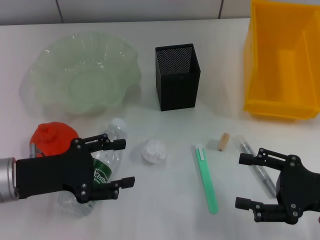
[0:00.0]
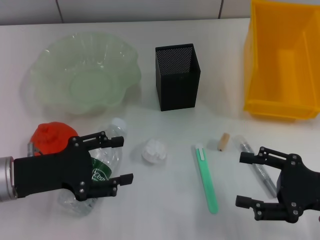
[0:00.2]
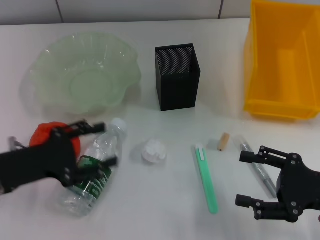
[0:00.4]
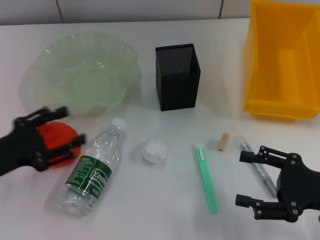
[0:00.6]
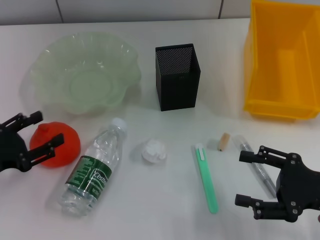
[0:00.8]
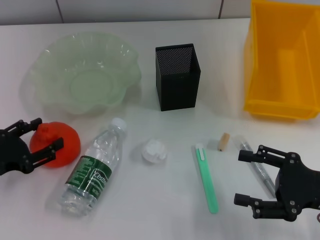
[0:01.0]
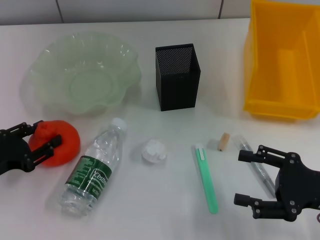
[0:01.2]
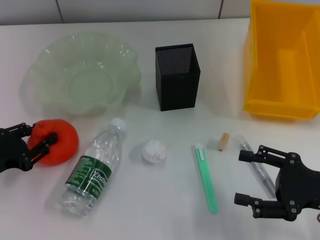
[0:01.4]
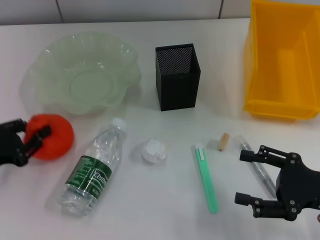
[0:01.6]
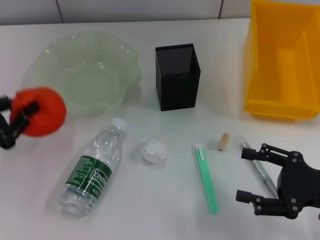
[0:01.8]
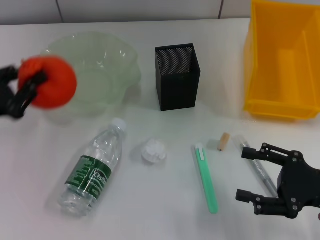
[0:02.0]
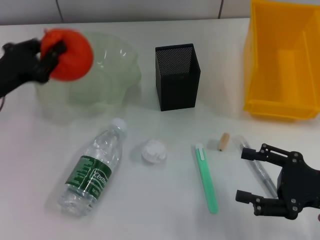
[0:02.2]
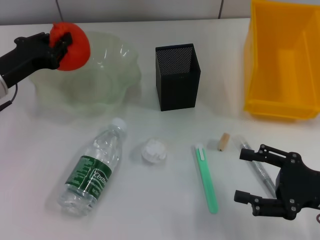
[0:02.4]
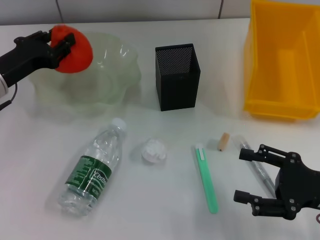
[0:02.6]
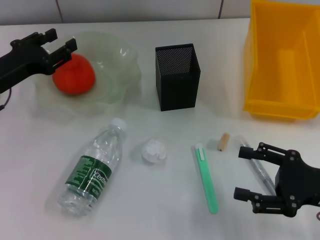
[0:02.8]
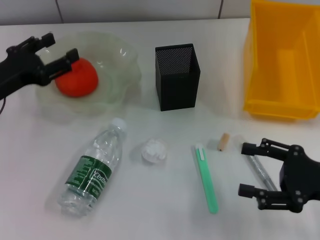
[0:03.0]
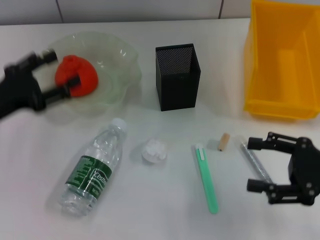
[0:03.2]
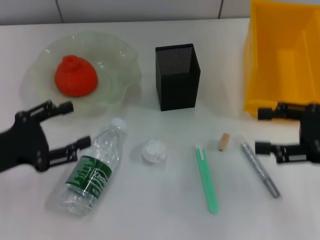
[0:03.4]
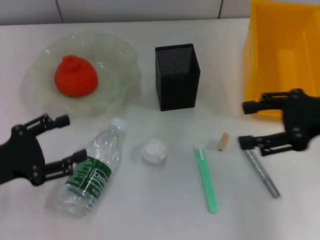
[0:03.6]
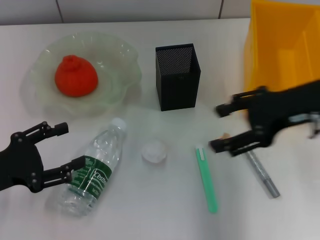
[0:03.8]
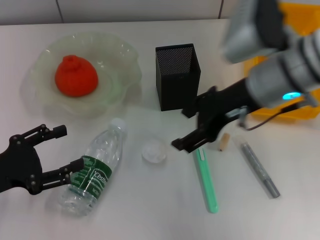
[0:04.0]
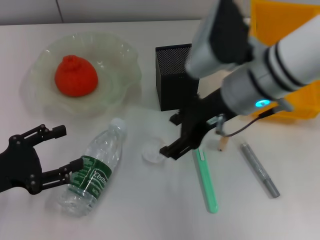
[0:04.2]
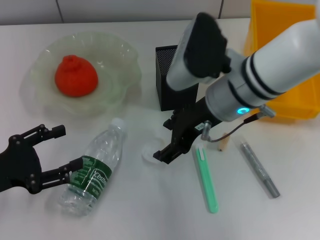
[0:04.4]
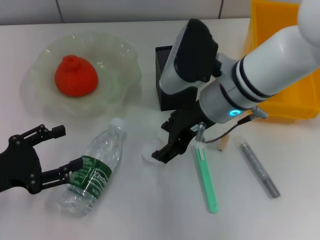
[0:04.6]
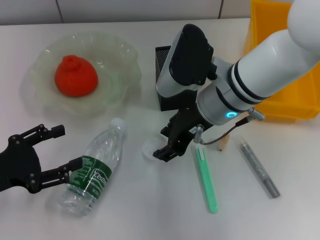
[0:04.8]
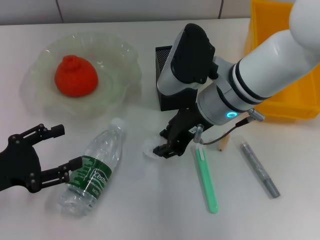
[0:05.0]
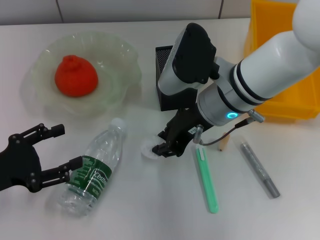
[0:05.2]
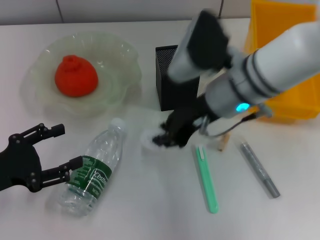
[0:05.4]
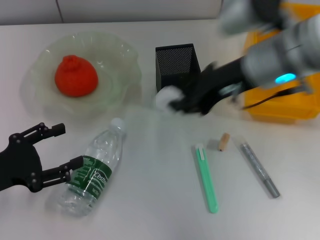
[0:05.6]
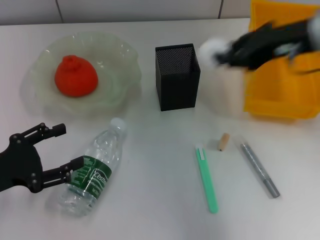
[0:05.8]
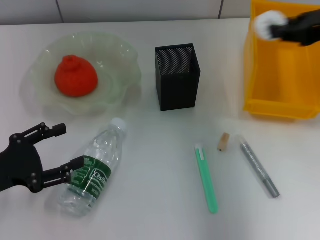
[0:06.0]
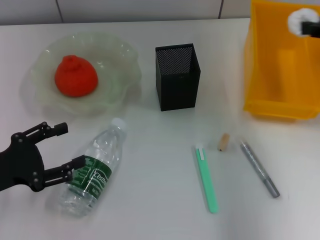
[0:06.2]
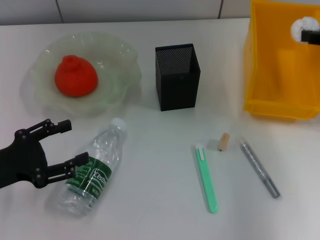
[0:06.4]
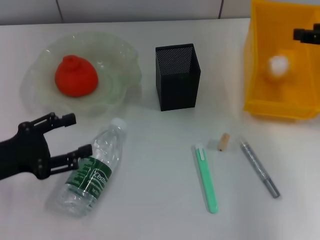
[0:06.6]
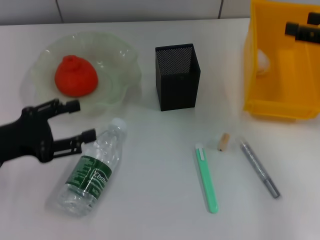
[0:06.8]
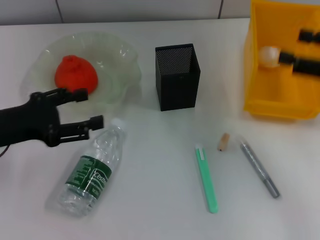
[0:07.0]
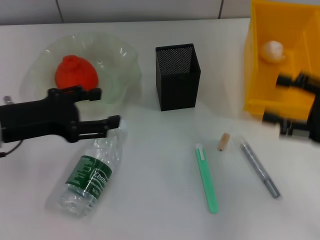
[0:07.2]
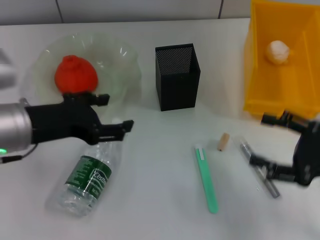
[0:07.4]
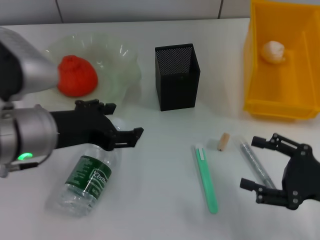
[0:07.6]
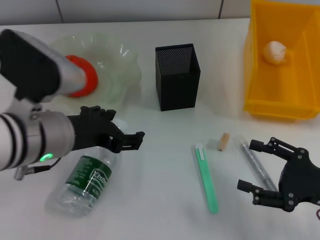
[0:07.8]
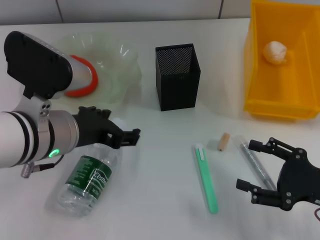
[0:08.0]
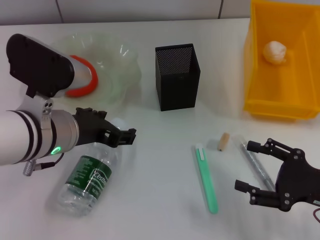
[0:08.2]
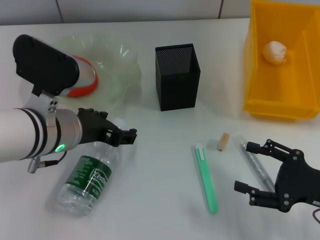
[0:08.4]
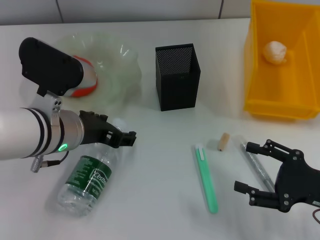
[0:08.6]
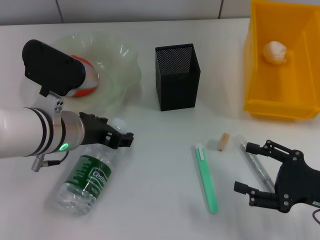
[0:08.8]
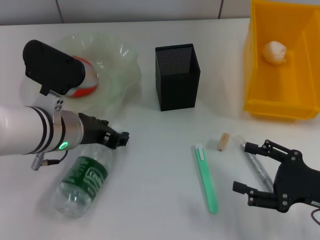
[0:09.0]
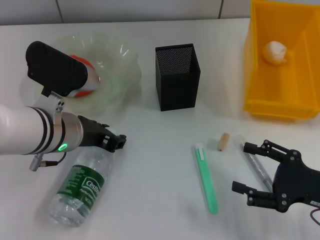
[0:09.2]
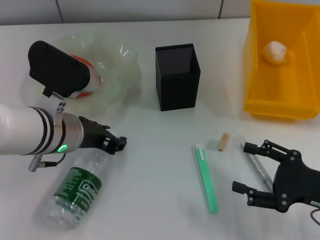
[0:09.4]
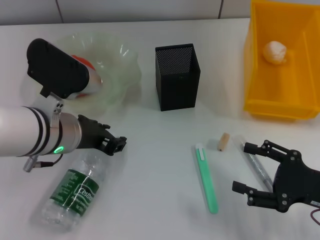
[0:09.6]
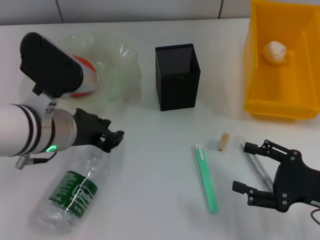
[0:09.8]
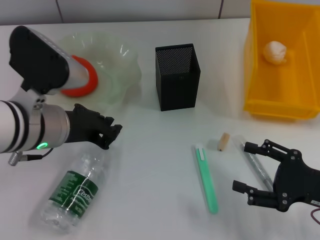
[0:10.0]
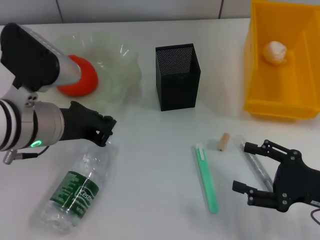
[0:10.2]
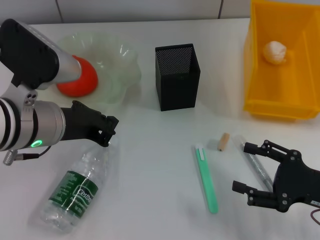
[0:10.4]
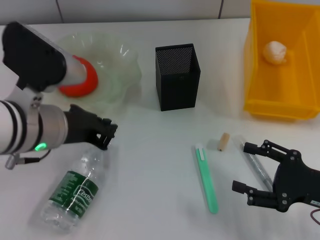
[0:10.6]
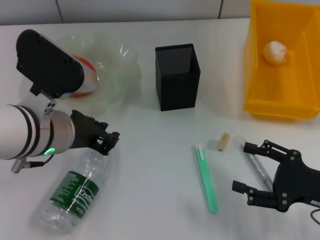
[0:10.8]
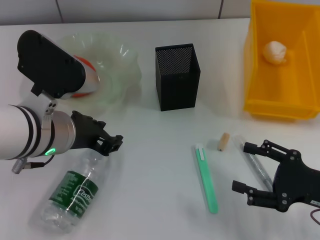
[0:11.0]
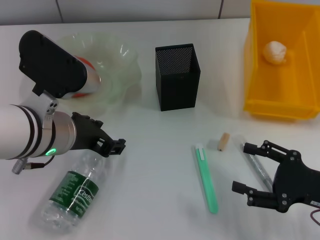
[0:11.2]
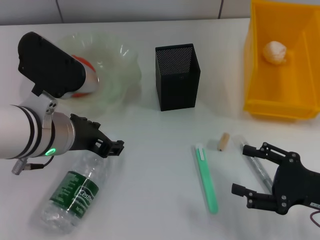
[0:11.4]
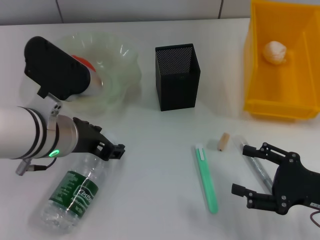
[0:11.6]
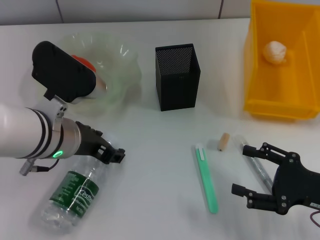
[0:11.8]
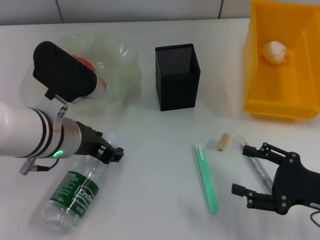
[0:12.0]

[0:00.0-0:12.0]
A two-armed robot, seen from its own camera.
Step, 0.0 to 1.4 s: Grab the orange with the left hand.
Step, 1.6 to 3.2 s: Place the orange into the fruit bowl with the left hand.
Step, 3.4 to 5.0 s: Grab the paper ball with the right hand.
Step, 5.2 to 6.6 s: Place the paper ball into the trash can with the right hand.
0.0 to 1.6 s: The left gripper goes about 10 cm to the left, and closes its fingers.
1.6 to 3.0 s: The left gripper travels forward and upward by approximately 10 cm, and closes and opens again.
3.0 to 4.4 s: The right gripper shifts about 25 cm to the left, forward and upward. Meanwhile the left gripper goes roughly 10 cm backward.
4.4 to 6.0 s: The right gripper travels to the right and upward by about 20 cm, and closes up.
6.0 to 7.6 s: The right gripper heads downward and backward, covering about 25 cm, and opens up; the left gripper moves to the right and upward, about 15 cm.
7.6 to 9.0 s: The left gripper is displaced downward by roughly 5 cm.
9.0 to 10.4 s: The left gripper changes place by some 5 cm, and closes its fingers.
10.4 to 12.0 s: The left gripper opens up.

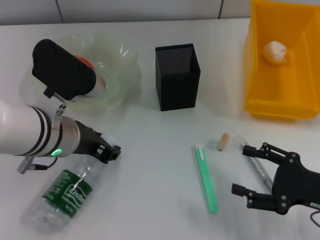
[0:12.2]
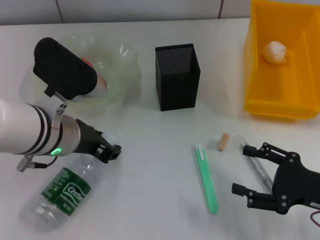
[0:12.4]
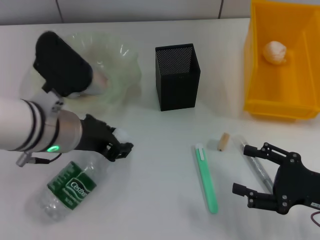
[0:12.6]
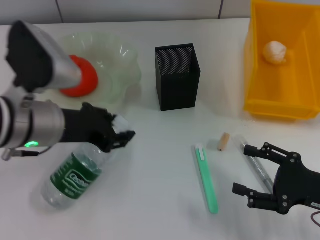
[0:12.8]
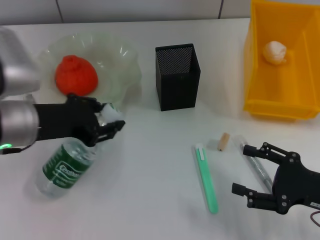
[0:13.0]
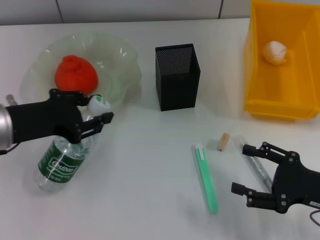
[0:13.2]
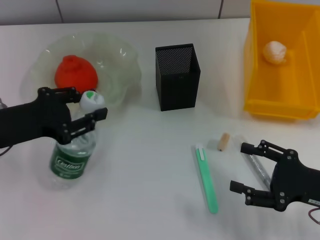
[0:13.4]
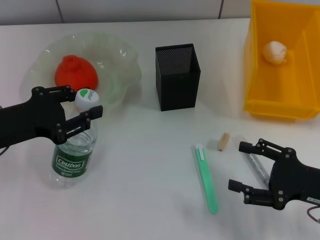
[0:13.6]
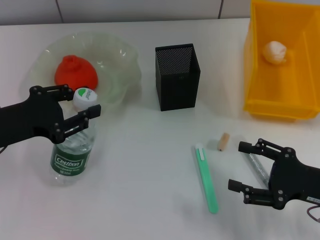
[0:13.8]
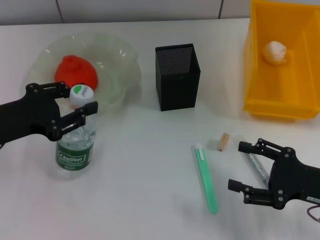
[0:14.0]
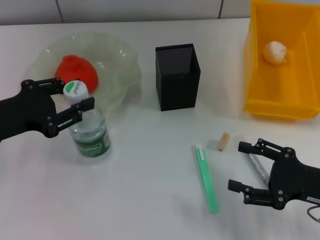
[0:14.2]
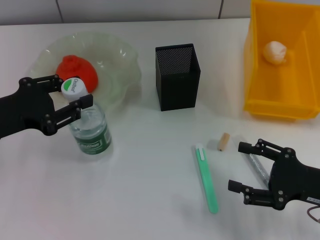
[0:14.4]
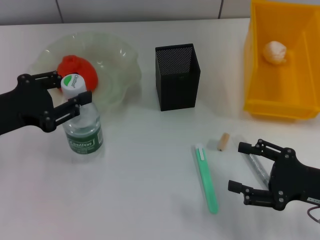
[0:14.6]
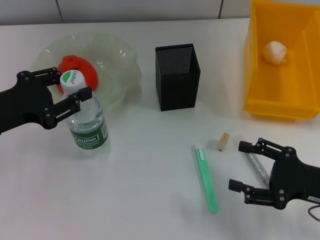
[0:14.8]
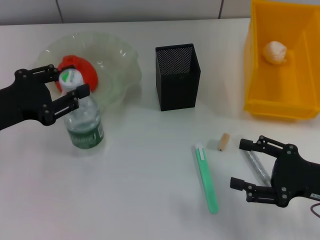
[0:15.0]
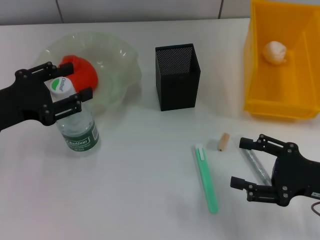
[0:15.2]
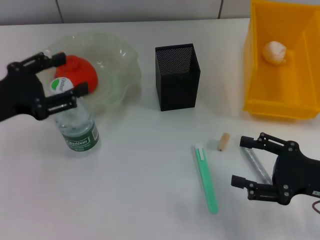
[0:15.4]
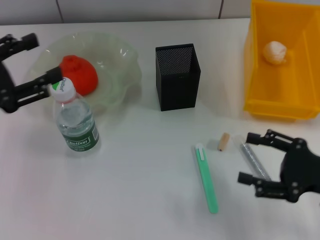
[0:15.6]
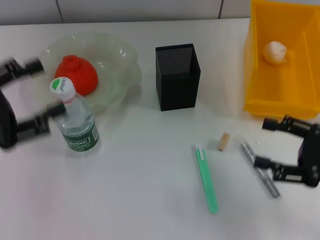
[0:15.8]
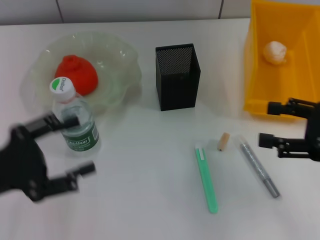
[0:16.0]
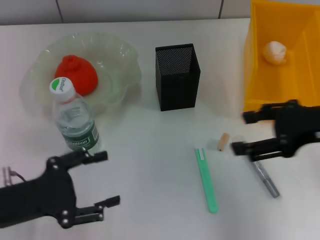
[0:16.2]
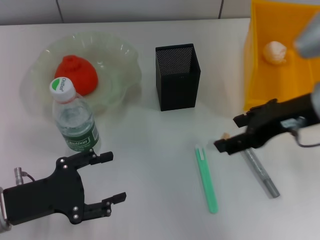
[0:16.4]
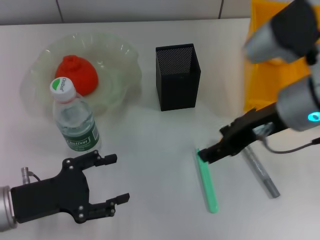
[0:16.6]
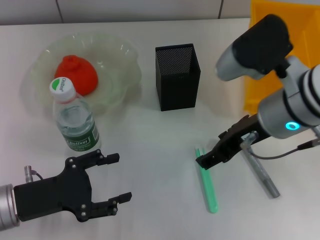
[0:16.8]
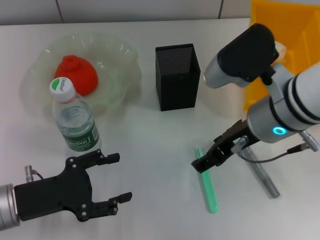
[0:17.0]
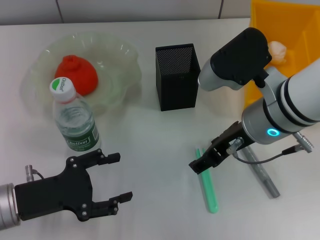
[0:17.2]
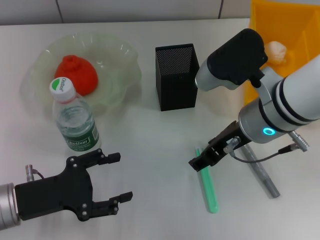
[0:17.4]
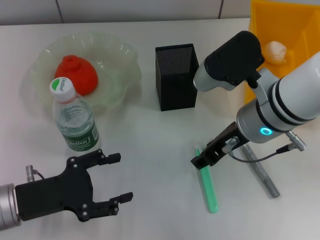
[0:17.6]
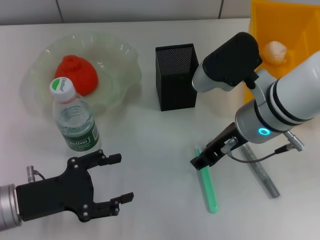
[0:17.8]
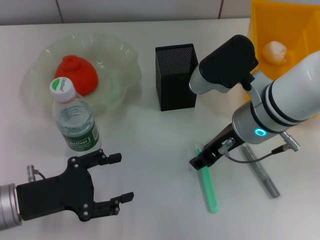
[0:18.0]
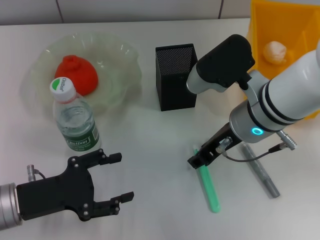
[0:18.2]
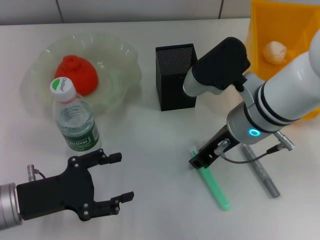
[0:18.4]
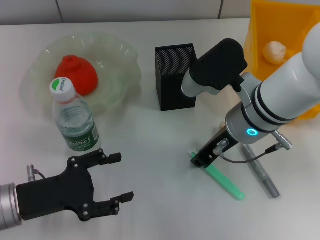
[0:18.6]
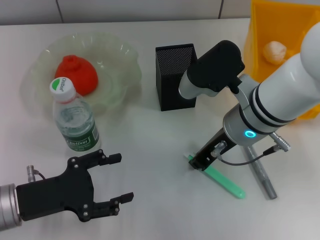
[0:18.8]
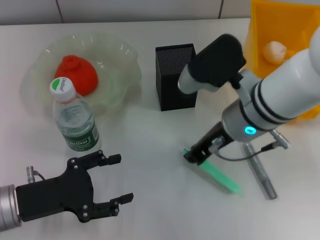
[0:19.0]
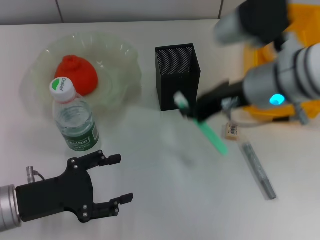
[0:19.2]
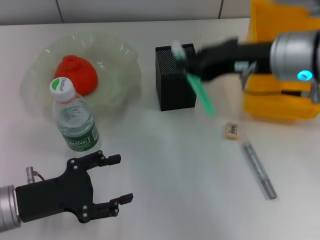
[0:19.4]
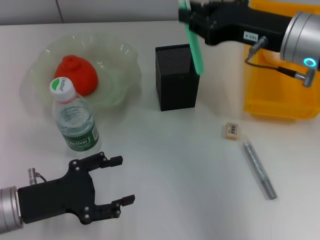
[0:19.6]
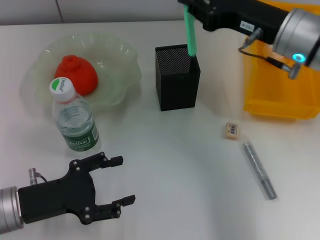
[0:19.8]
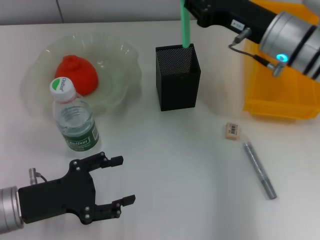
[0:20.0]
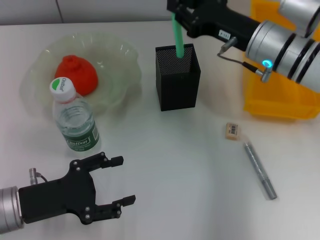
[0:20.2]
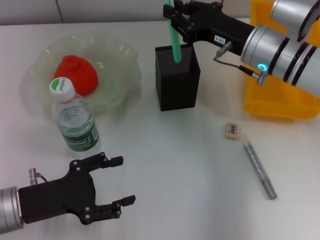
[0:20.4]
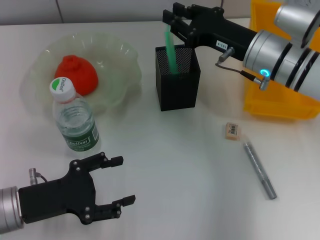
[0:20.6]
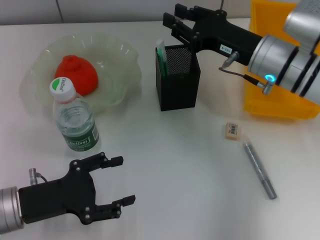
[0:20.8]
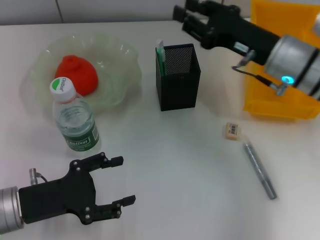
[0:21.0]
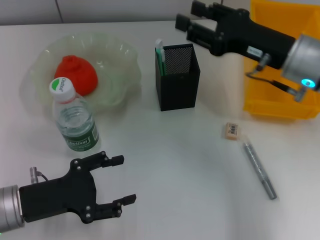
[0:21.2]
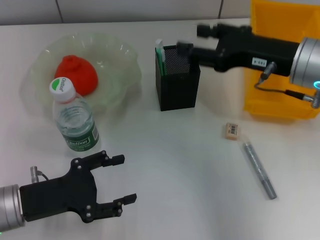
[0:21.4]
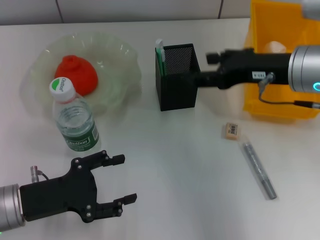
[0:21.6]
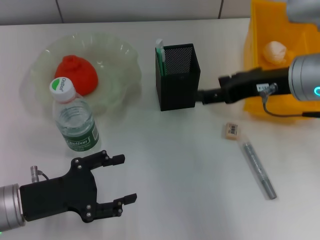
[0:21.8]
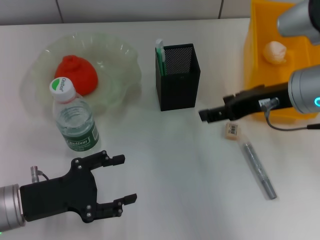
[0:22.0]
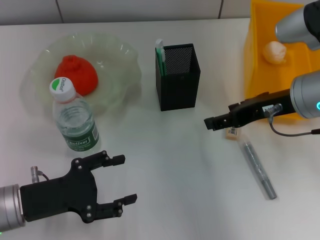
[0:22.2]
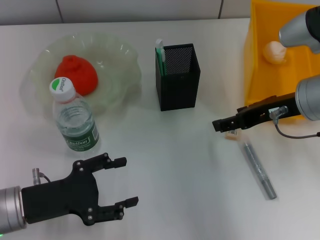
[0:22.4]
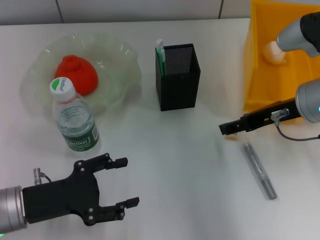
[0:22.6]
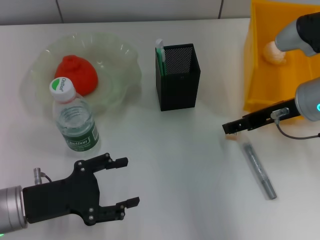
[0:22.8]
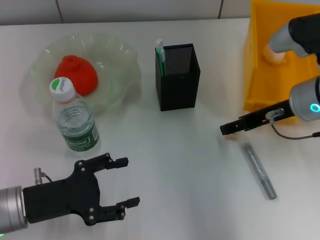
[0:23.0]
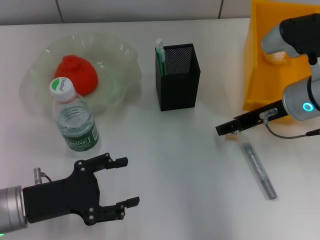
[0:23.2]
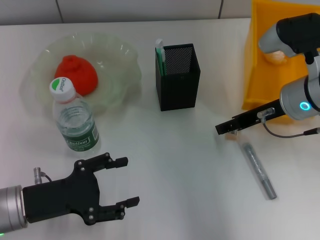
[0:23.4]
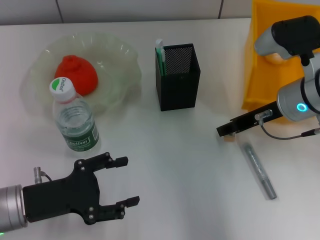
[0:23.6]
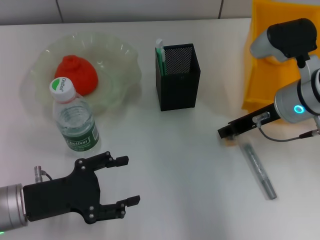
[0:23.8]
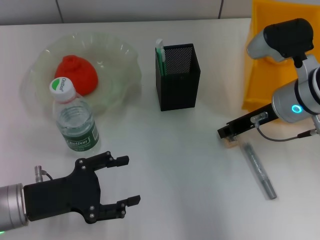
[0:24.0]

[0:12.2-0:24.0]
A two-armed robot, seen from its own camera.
Step, 12.8 to 15.8 s: Place the water bottle on the table with the left hand.
Step, 16.2 to 18.8 s: Grab the blue utility knife with the right hand.
Step, 19.0 to 21.0 s: Place the blue utility knife into the pen holder with the right hand.
12.2 to 13.6 s: The left gripper moves to the left, roughly 10 cm.
13.6 to 15.2 s: The grippers stay close to where they were, moving slightly.
15.2 to 16.6 s: The left gripper goes roughly 10 cm downward and backward, and opens; the right gripper goes roughly 20 cm upward, to the left and forward.
16.6 to 18.2 s: The right gripper heads downward, covering approximately 5 cm, and closes.
18.2 to 19.6 s: The right gripper travels to the right and upward by some 10 cm, and closes its fingers.
19.6 to 21.0 s: The right gripper is displaced downward by roughly 5 cm.
21.0 to 22.6 s: The right gripper opens its fingers.
22.6 to 24.0 s: The right gripper closes up.
